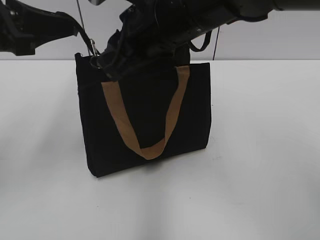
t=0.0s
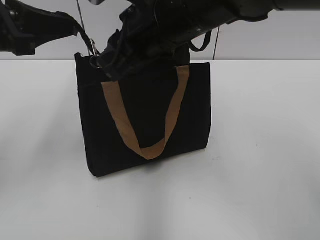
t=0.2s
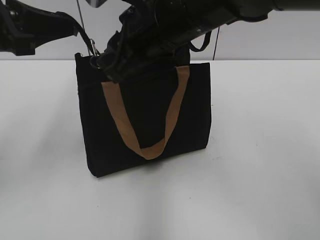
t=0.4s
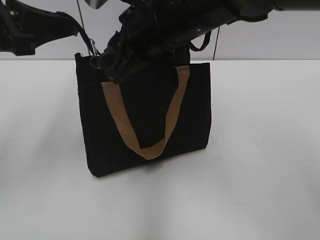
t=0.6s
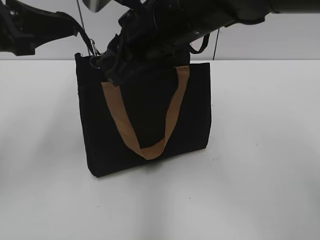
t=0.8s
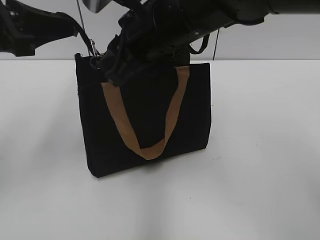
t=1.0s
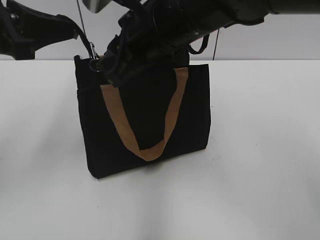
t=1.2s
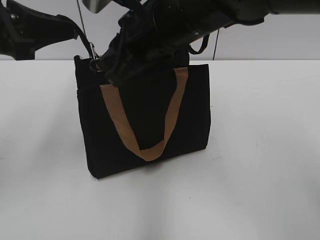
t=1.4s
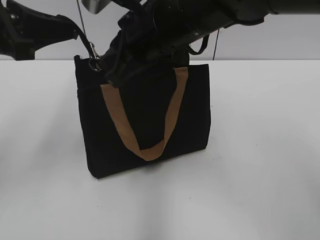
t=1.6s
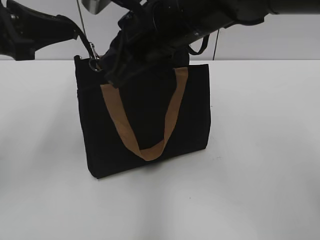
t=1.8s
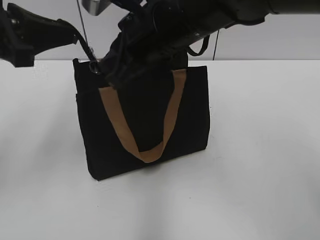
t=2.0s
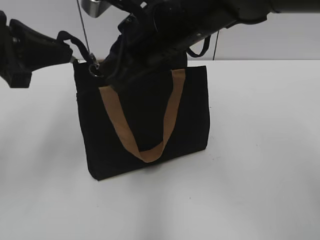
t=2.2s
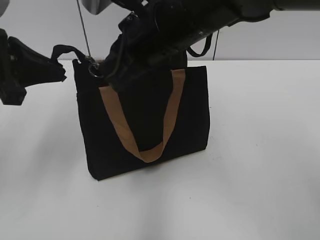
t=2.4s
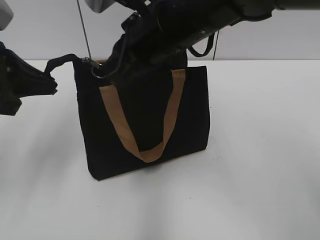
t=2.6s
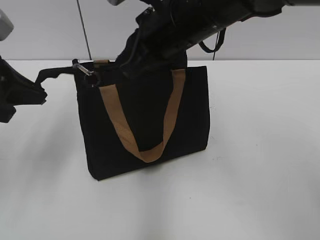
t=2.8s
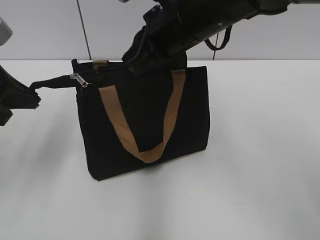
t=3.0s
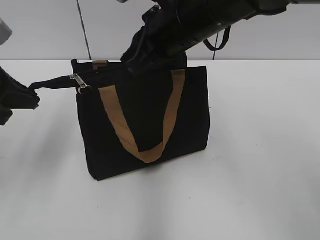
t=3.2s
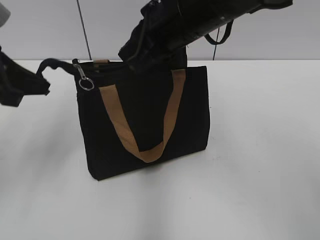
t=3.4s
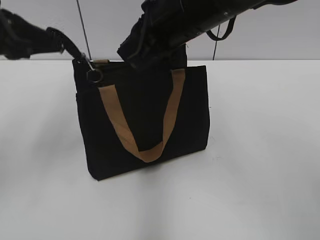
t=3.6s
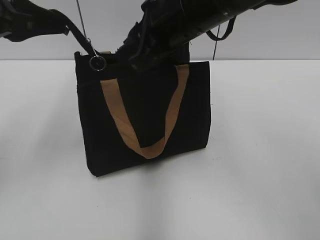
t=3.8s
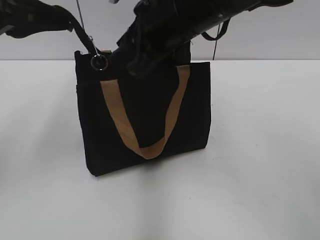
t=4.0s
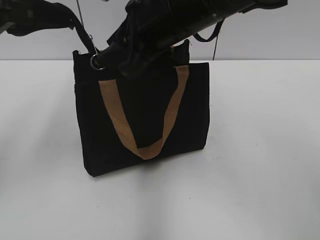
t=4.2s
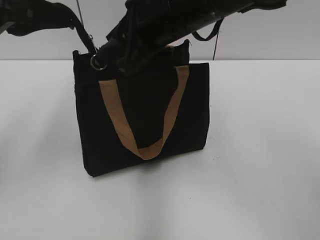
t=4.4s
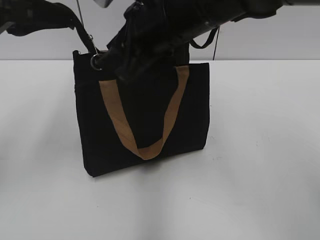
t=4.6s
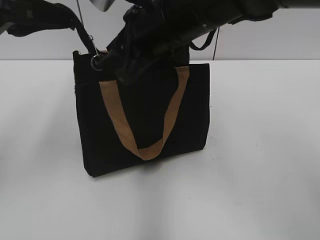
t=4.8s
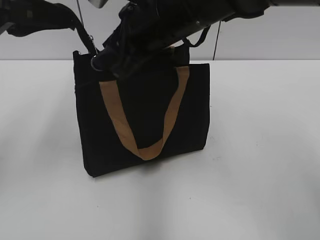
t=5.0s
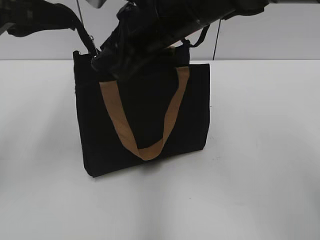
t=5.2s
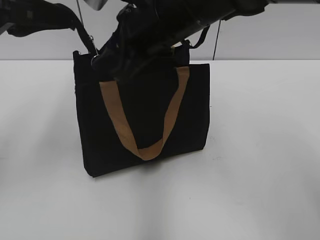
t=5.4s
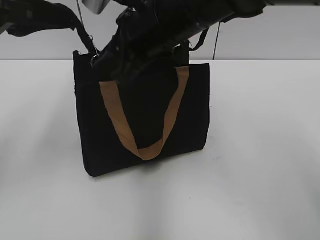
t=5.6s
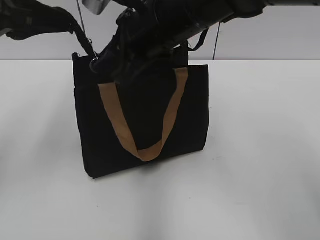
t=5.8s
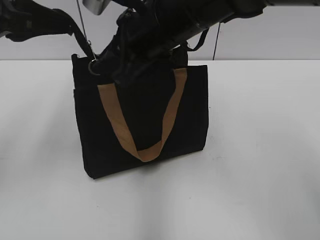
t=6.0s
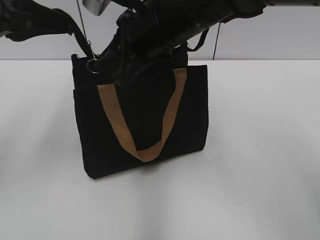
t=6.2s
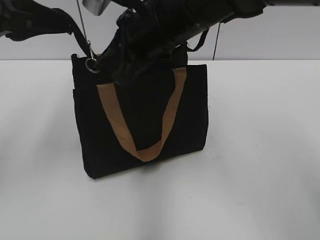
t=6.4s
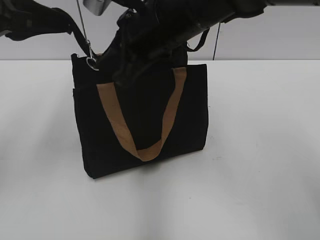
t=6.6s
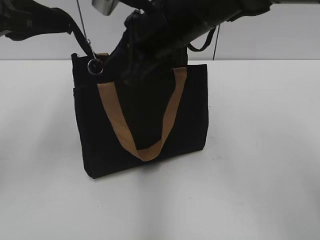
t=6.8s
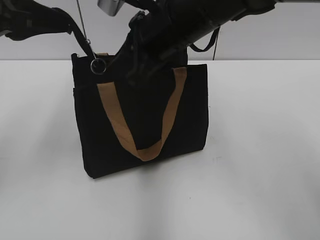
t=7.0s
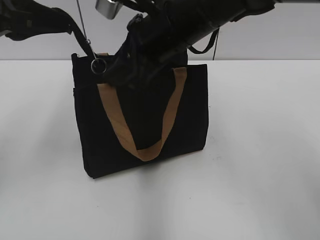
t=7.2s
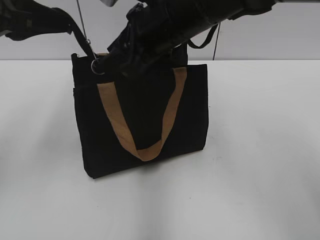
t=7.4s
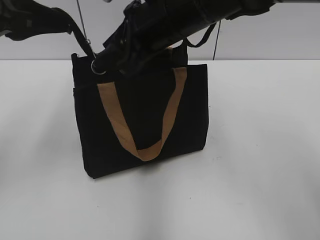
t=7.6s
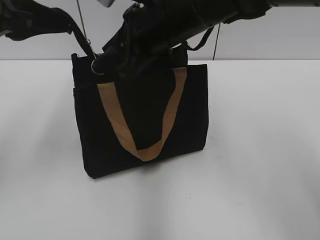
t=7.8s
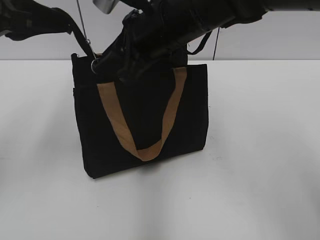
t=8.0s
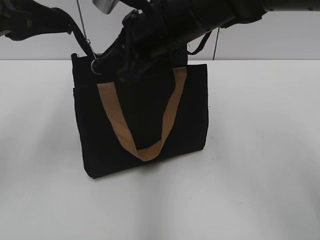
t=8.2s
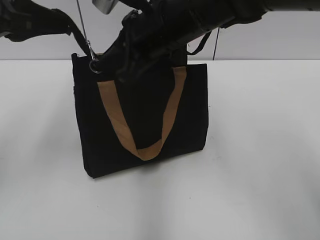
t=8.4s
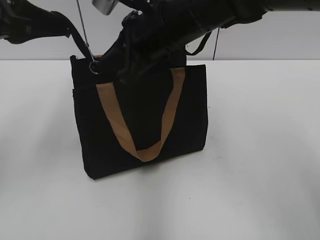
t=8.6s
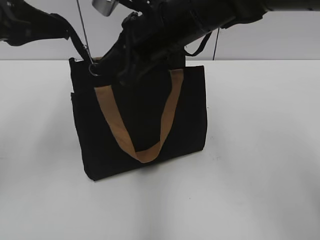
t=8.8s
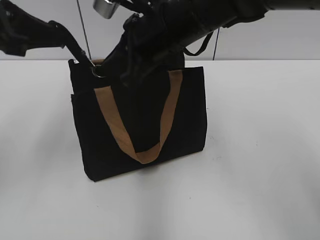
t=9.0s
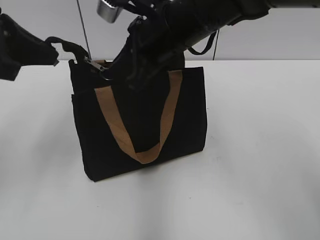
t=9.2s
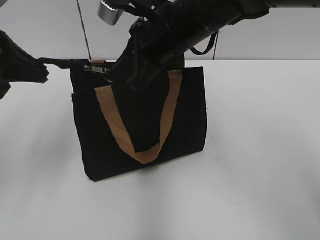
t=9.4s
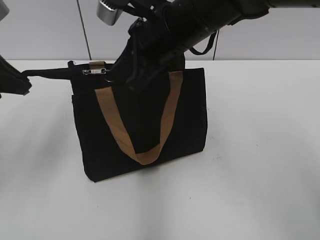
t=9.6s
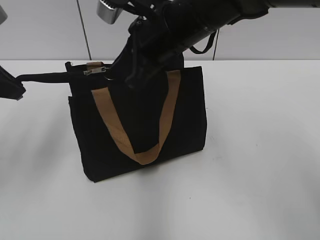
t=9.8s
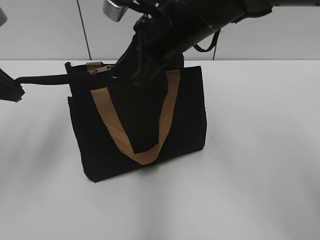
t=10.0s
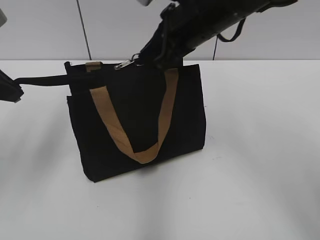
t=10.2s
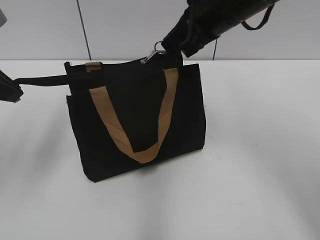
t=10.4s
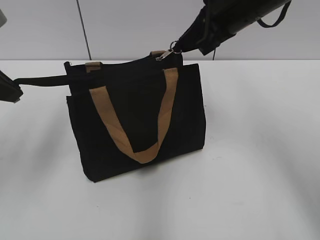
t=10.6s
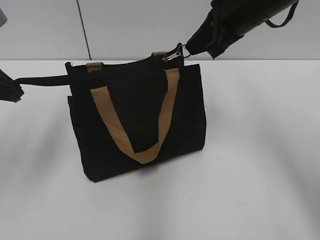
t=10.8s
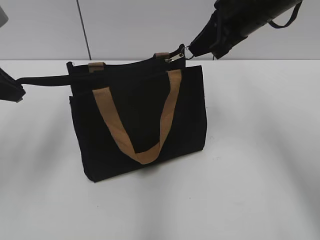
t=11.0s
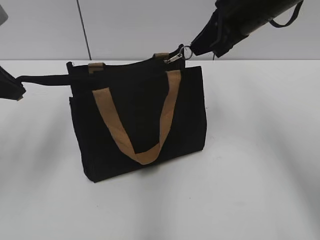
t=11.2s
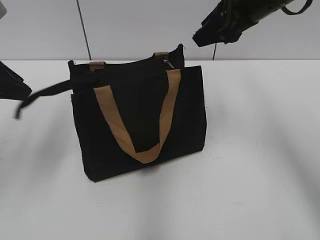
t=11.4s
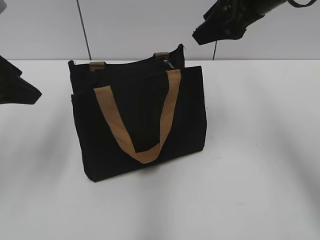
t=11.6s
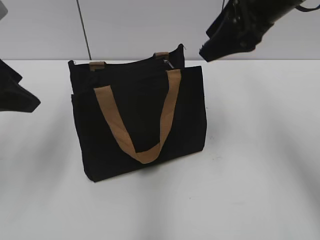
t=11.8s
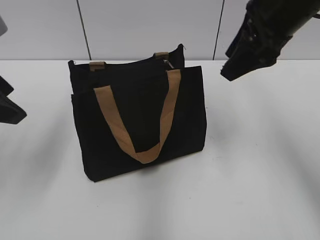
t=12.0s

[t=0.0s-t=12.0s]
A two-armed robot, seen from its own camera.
Step, t=0.0s to t=11.2s: Zip up the bag with your right hand.
t=0.0s to t=1.6s: The right gripper closes up.
t=1.6s to t=3.0s: The left gripper shifts by about 5 cm.
t=3.0s to t=4.4s: The right gripper opens its fingers. Meanwhile the left gripper travels upward by approximately 5 cm.
t=4.4s to t=6.0s: The grippers move only a little.
t=6.0s to t=7.6s: The right gripper closes, then opens again.
t=7.6s to t=9.0s: The right gripper closes.
t=9.0s to t=10.4s: The right gripper travels to the right by approximately 10 cm.
t=10.4s to t=12.0s: The right gripper shifts roughly 5 cm to the right, and opens its fingers; the left gripper opens up.

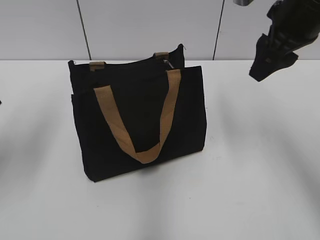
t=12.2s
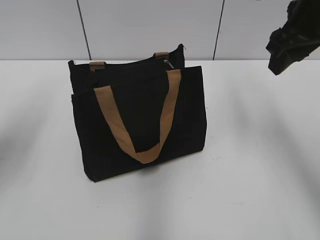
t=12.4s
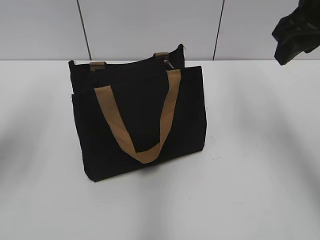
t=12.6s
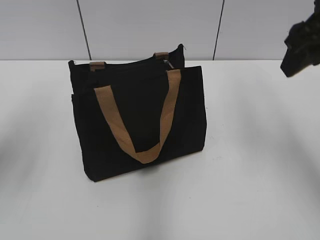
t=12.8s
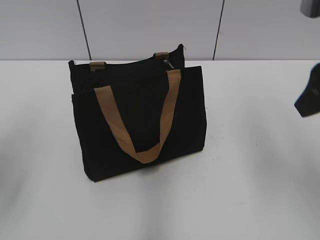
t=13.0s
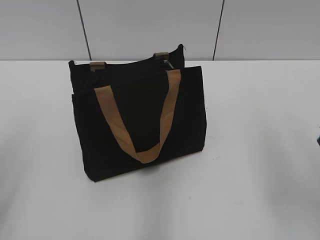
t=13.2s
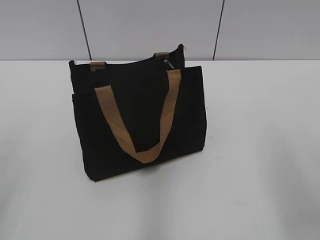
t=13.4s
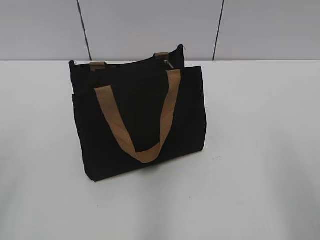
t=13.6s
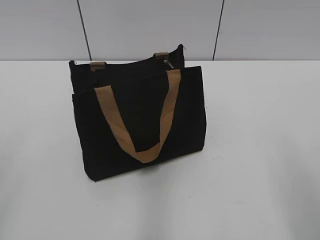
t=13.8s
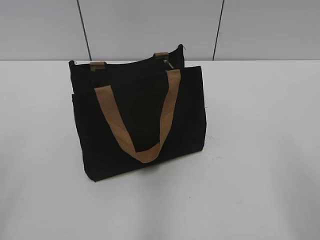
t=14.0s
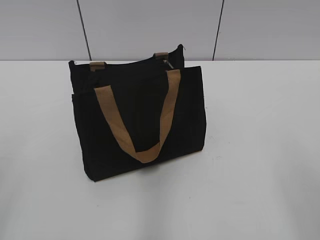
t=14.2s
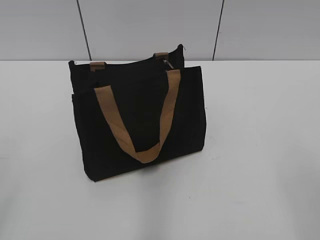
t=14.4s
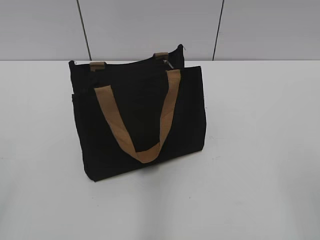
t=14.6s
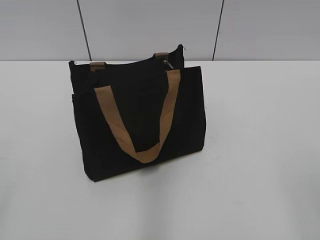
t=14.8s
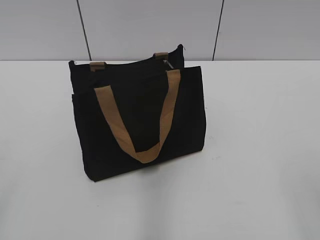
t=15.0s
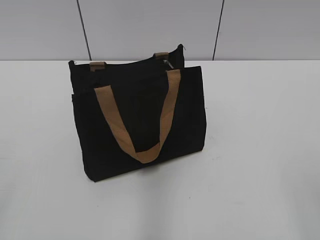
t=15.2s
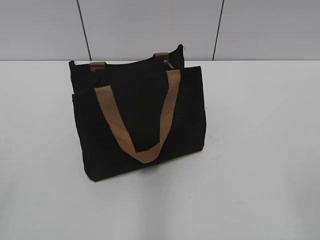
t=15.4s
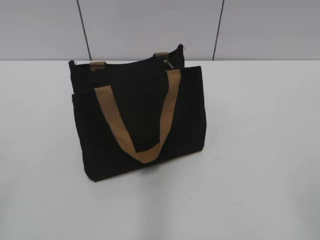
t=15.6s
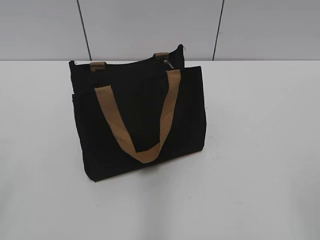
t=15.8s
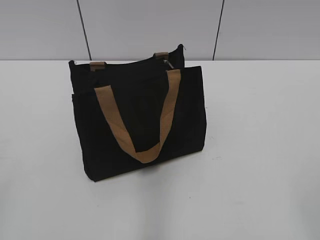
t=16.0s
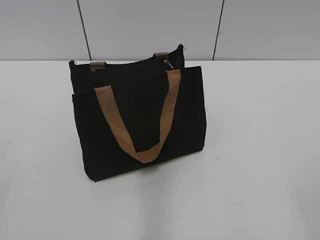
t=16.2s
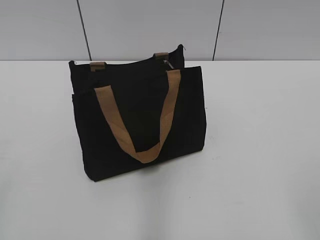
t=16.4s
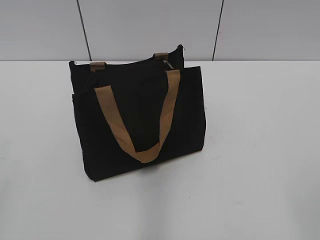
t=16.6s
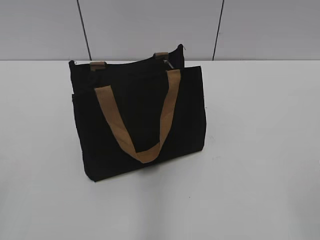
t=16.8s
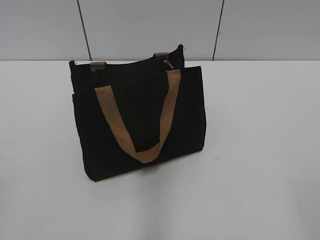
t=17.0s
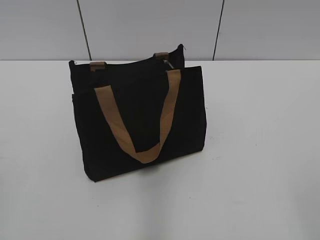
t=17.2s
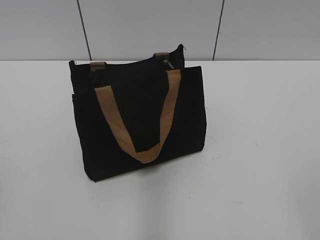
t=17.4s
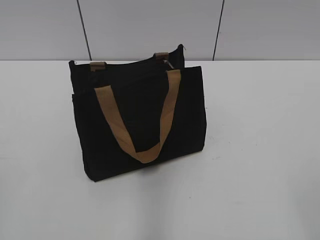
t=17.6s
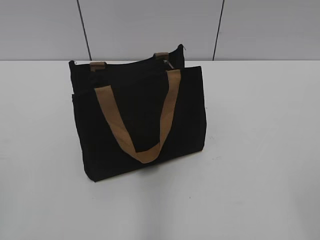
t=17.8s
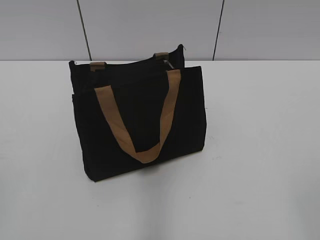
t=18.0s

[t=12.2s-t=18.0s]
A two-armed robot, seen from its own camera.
t=12.2s to t=13.6s: Both grippers travel together backward, approximately 20 cm.

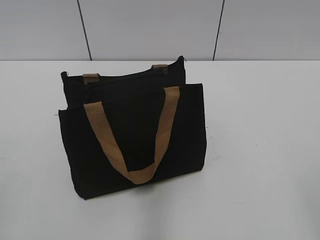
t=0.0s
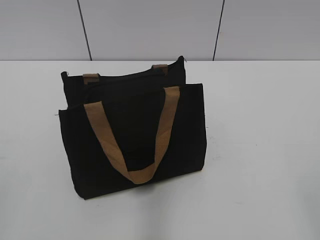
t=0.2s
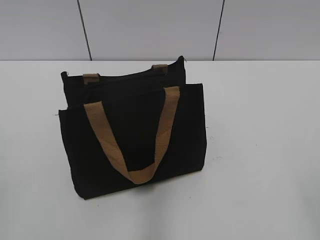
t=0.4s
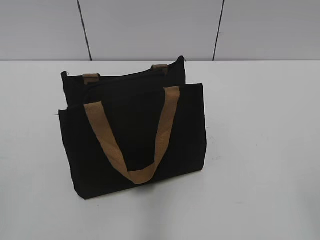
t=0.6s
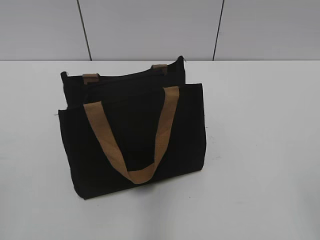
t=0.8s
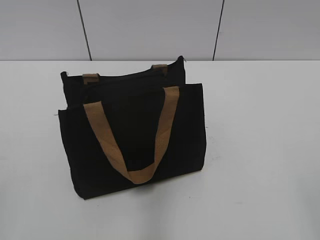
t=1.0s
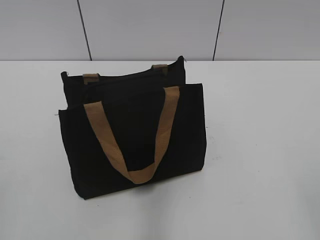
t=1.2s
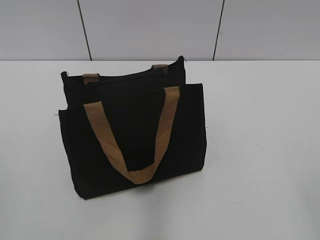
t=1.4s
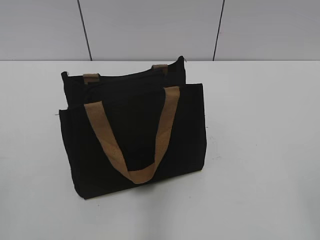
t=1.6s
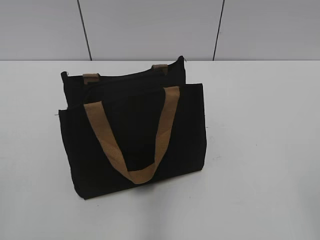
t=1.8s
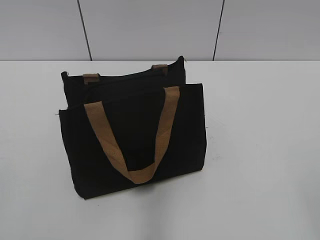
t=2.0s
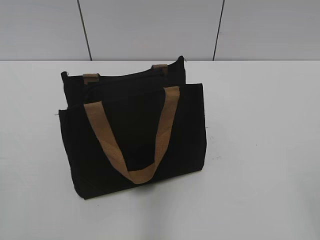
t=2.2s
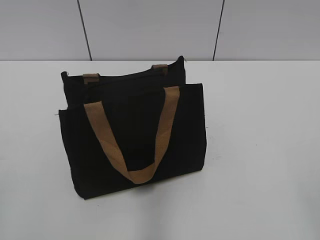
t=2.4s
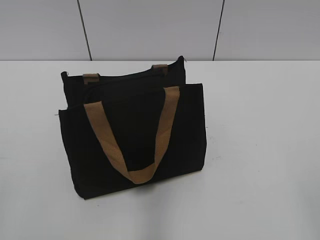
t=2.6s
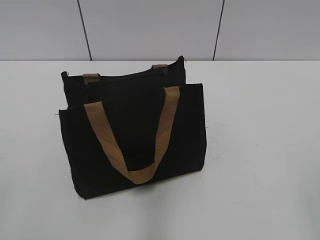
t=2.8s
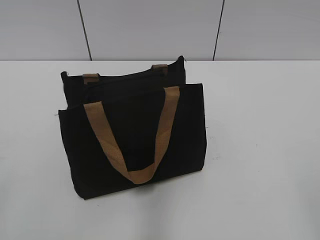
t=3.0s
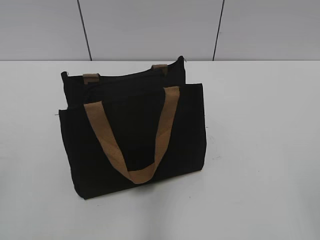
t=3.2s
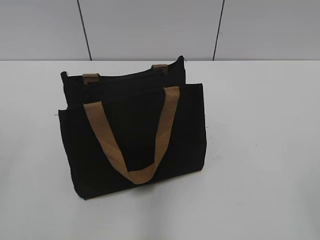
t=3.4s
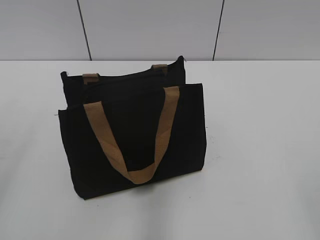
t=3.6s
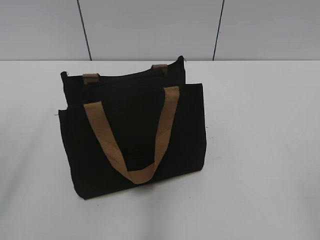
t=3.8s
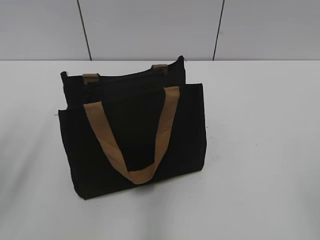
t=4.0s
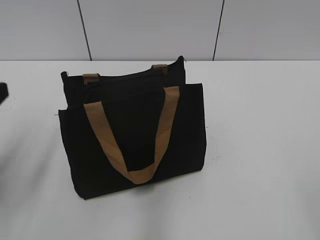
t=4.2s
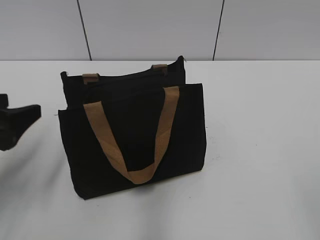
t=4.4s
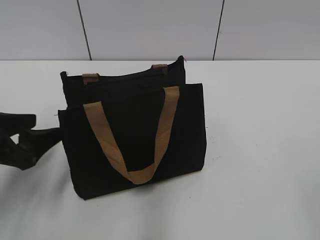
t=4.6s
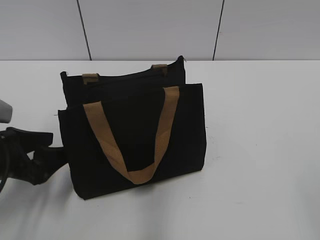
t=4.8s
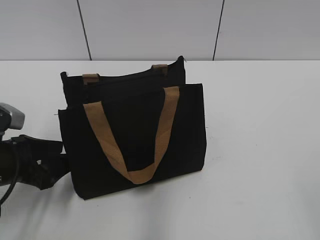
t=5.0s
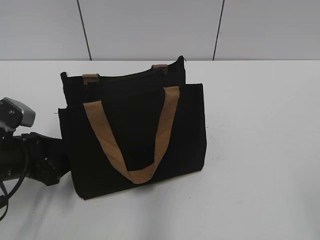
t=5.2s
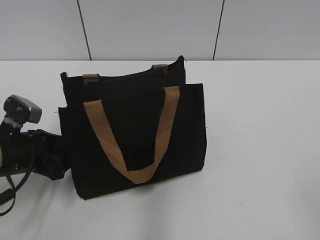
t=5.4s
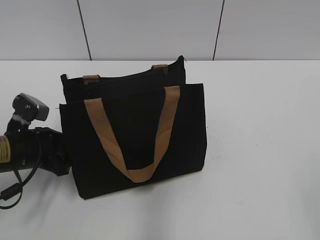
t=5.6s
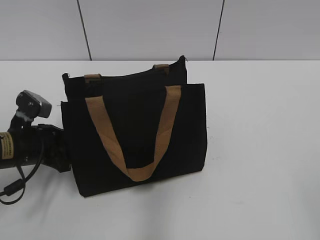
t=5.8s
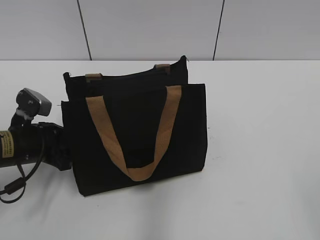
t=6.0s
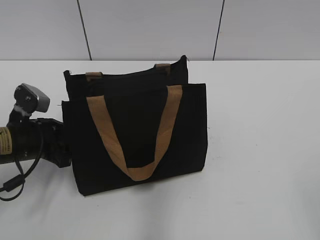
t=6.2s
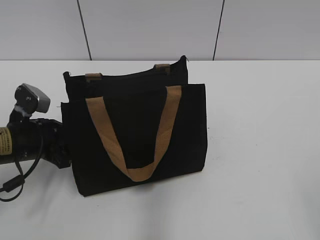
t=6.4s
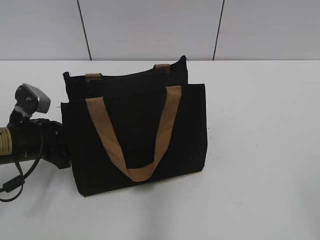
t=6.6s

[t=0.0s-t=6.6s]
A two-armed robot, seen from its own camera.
t=3.2s to t=5.0s: The left gripper is displaced forward and downward by about 30 cm.
t=5.0s to t=6.6s: The left gripper shifts approximately 5 cm forward, and closes.
